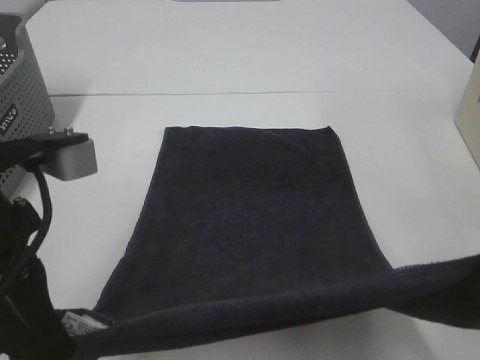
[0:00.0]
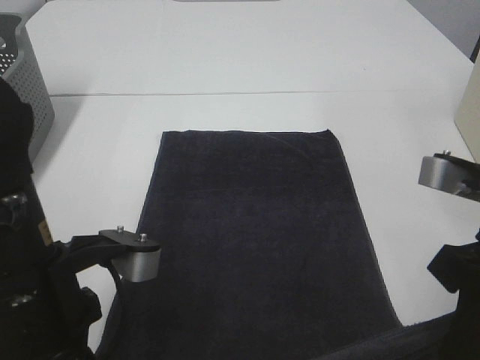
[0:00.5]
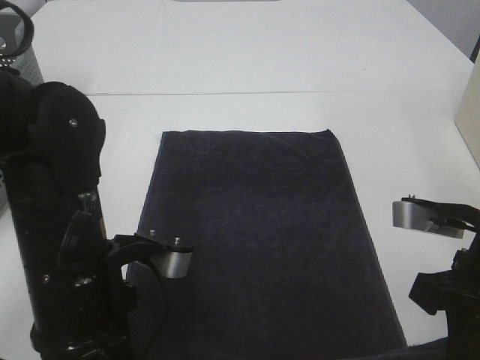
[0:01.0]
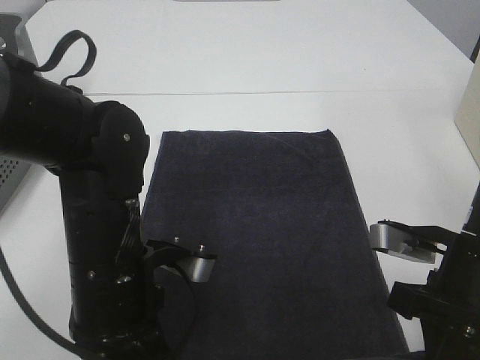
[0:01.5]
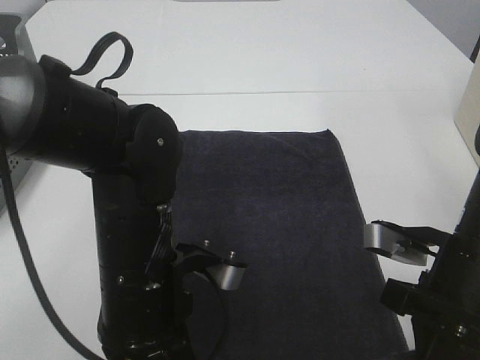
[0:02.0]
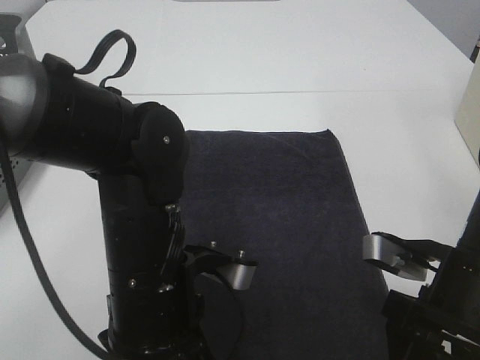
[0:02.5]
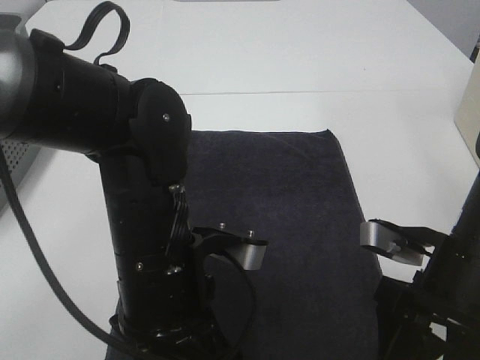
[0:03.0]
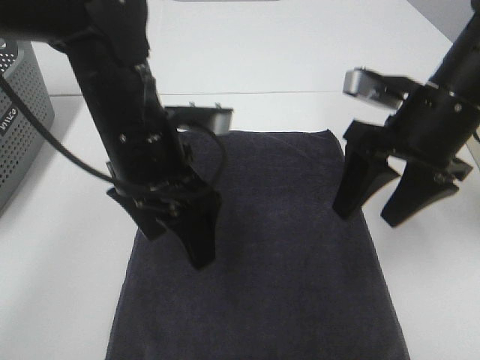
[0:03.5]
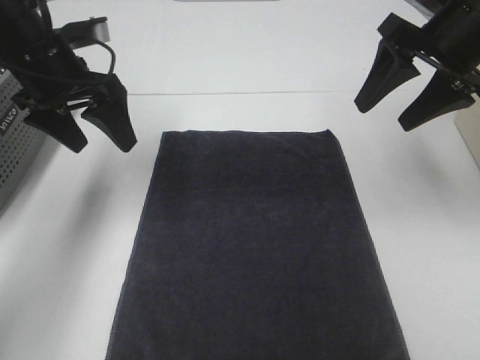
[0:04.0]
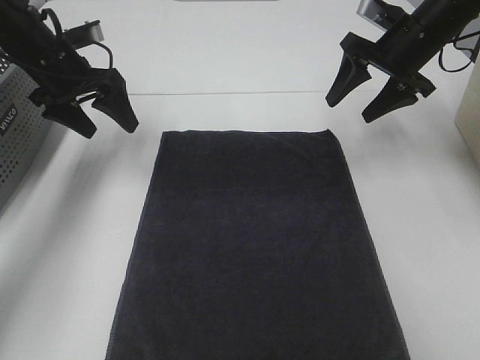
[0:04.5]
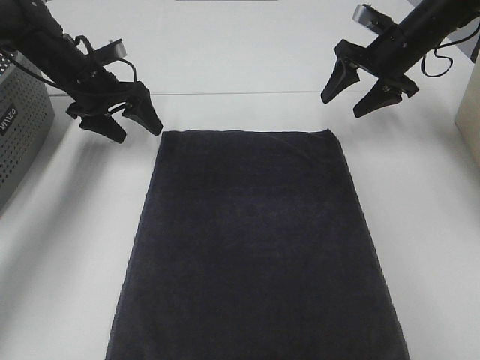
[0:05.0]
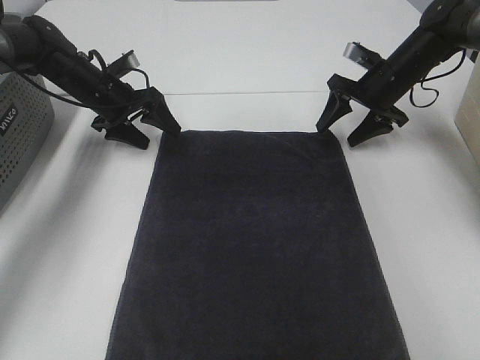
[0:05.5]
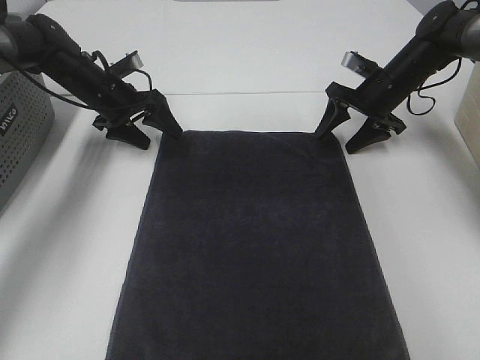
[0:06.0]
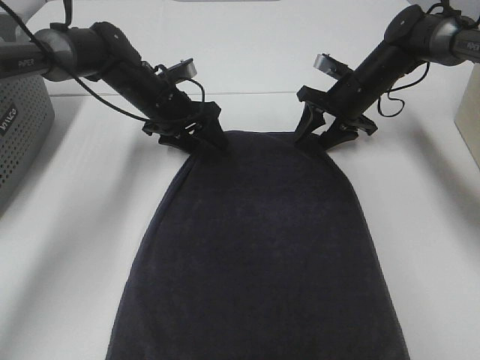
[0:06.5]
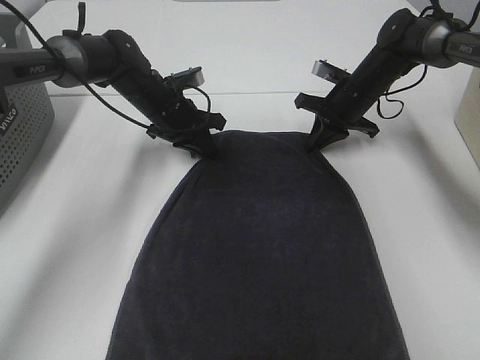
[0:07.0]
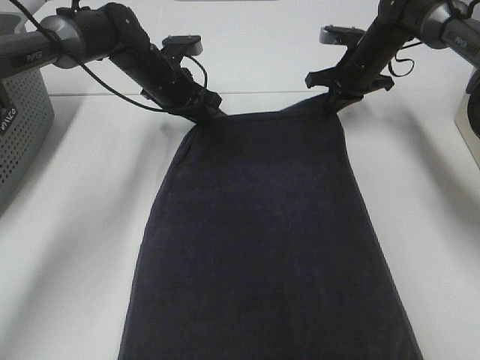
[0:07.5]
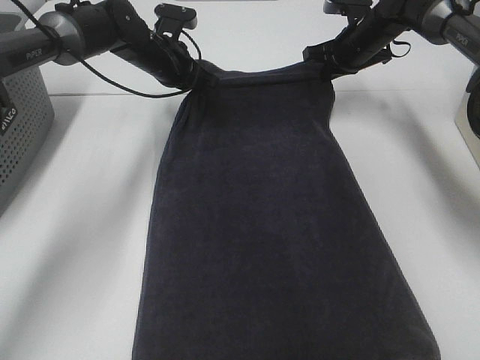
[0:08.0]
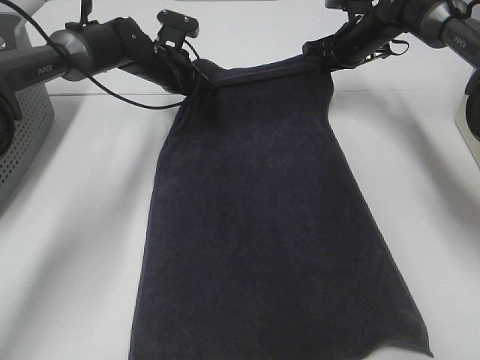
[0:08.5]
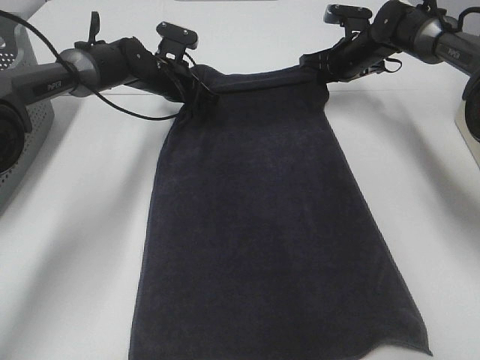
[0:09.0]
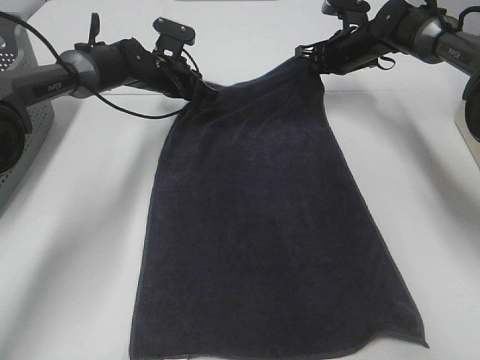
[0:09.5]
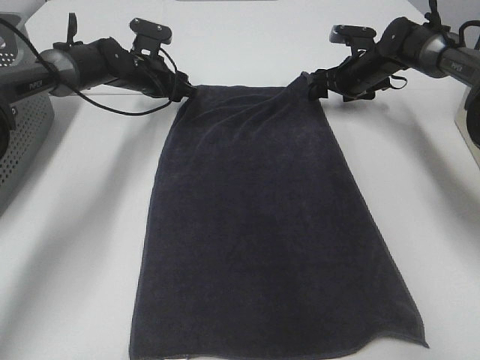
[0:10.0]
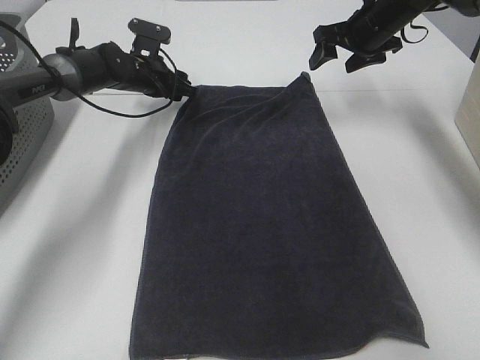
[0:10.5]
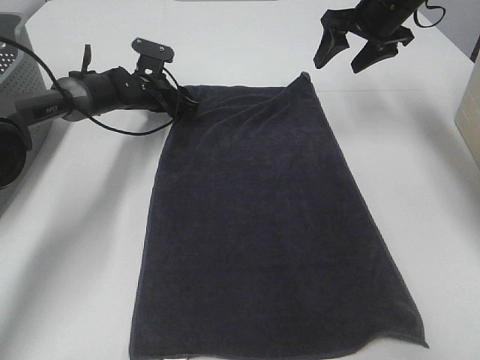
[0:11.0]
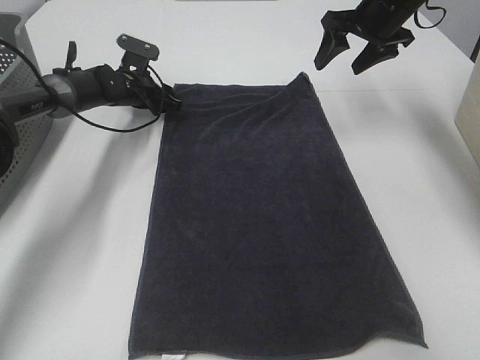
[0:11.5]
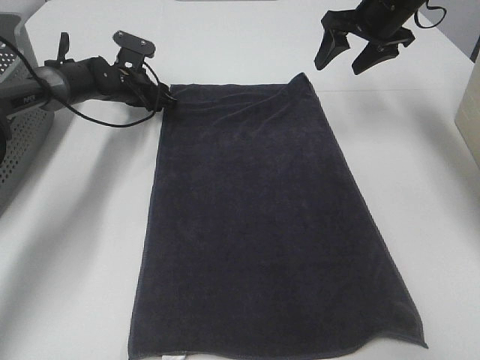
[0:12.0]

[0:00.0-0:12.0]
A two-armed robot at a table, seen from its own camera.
Task of the whole recording: Remove the towel and place it.
Step, 0:00.0 to 0:04.0: Right hand:adjust the gray towel.
Step, 0:00.0 to 0:06.5: Left hand:adjust the gray towel.
0:00.0 to 0:02.0: The right gripper is displaced downward by some 15 cm. The left gripper travels downward and to the right by some 15 cm.
0:02.0 to 0:04.0: The left gripper goes some 25 cm forward, to the left and upward, and opens its fingers, while the right gripper heads forward and upward, covering some 20 cm, and opens its fingers.
0:04.0 to 0:06.0: The left gripper shifts about 20 cm forward and downward. The right gripper moves downward and forward, roughly 20 cm.
0:06.0 to 0:08.0: The left gripper shifts some 10 cm to the right, and closes up, while the right gripper moves forward and upward, approximately 10 cm, and closes up.
0:08.0 to 0:10.0: The right gripper moves downward, roughly 5 cm, and opens. Meanwhile the left gripper shifts by about 5 cm, and opens.
0:10.0 to 0:12.0: The right gripper goes some 15 cm upward and backward.

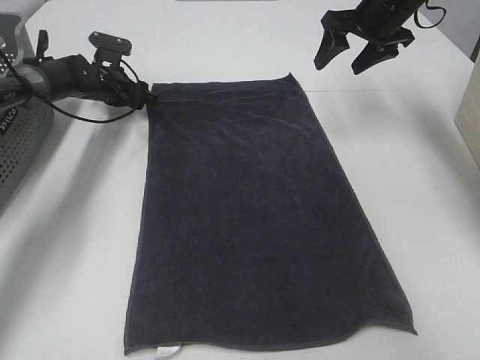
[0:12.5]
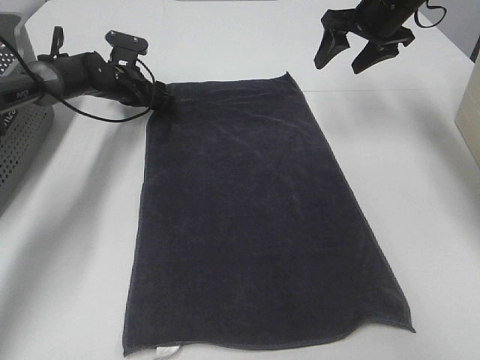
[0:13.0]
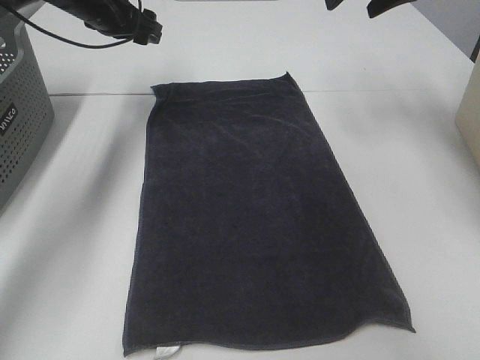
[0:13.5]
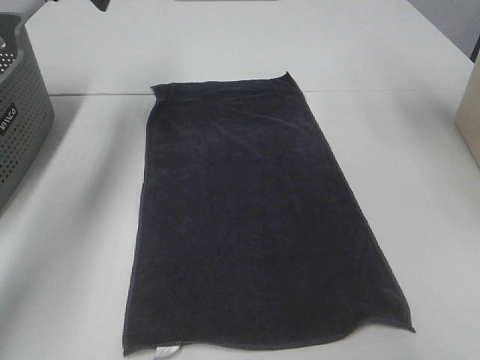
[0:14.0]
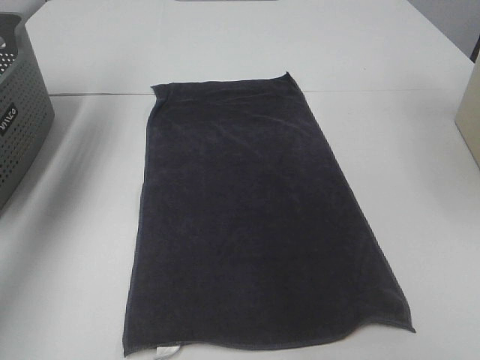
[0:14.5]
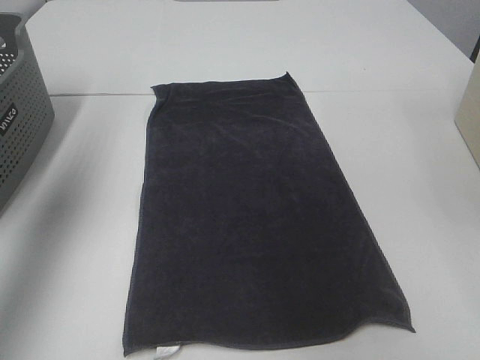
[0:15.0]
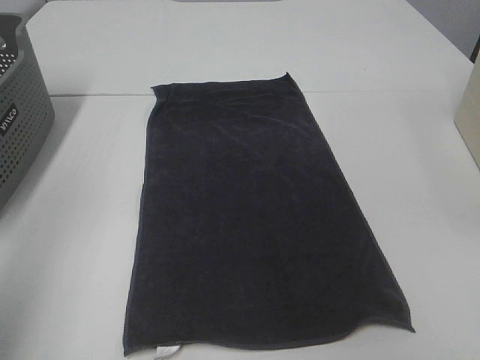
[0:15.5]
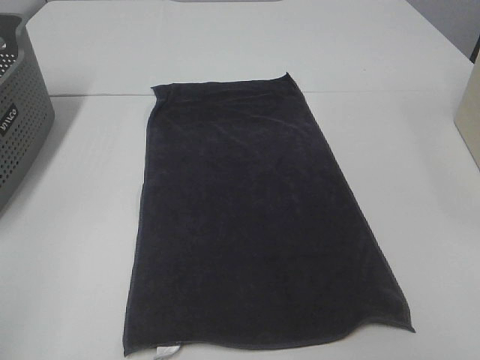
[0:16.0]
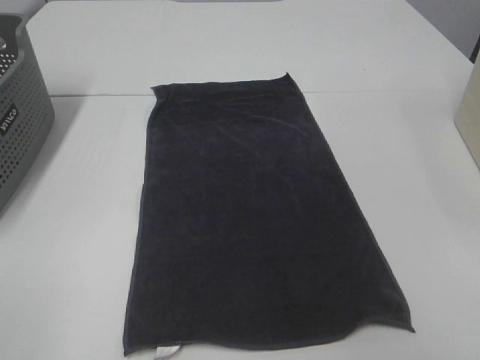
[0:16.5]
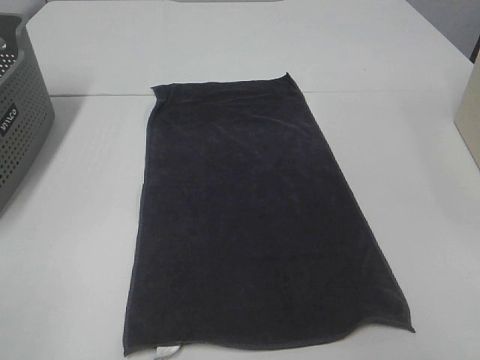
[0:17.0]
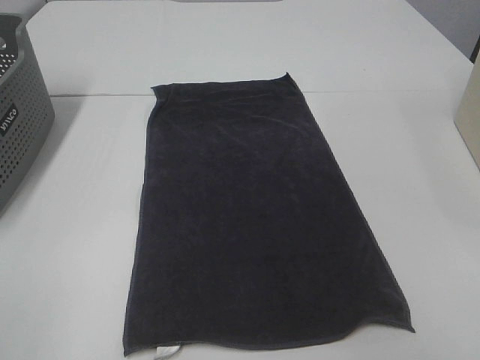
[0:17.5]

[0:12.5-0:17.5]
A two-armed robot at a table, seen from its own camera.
Task of the whole recording: Remove the towel and place it.
0:12.5 to 0:15.0: The right gripper moves backward and upward, about 40 cm. Meanwhile the left gripper travels upward and backward by some 50 cm.
0:15.0 to 0:17.5: The left gripper shifts about 35 cm backward and downward.

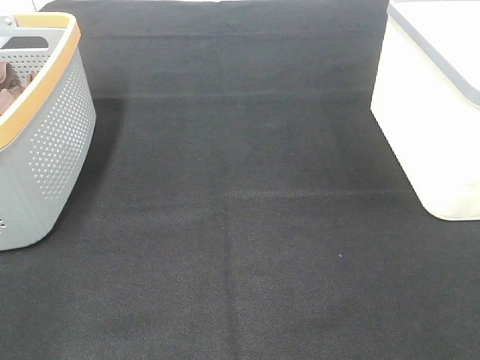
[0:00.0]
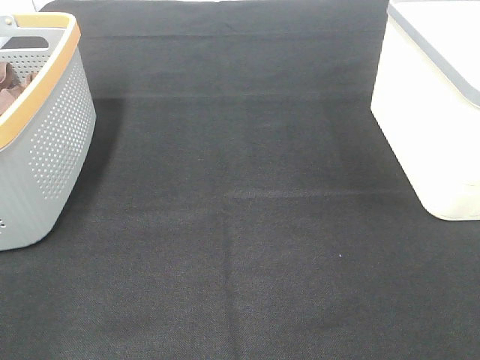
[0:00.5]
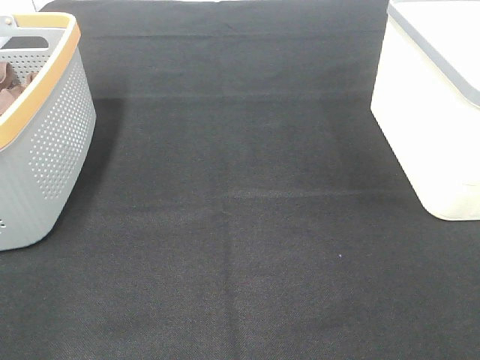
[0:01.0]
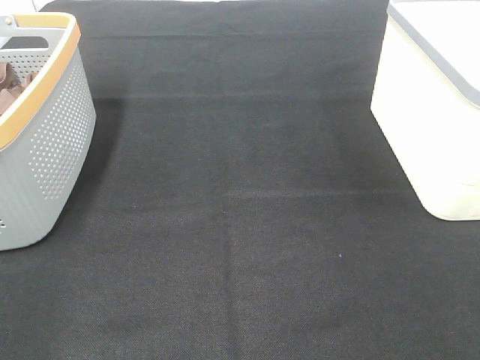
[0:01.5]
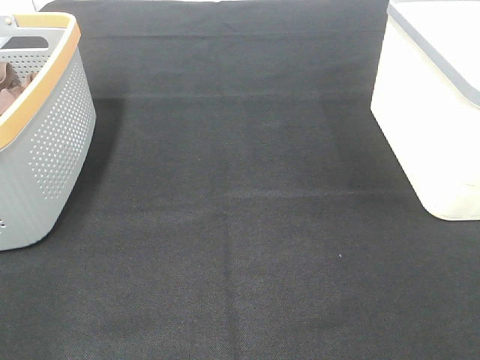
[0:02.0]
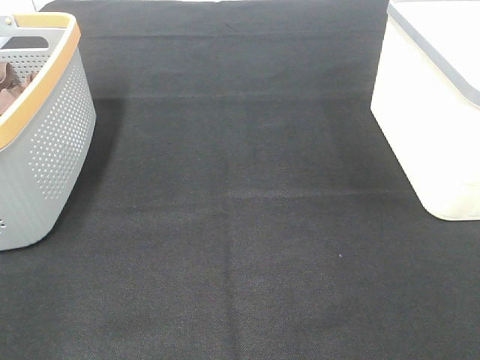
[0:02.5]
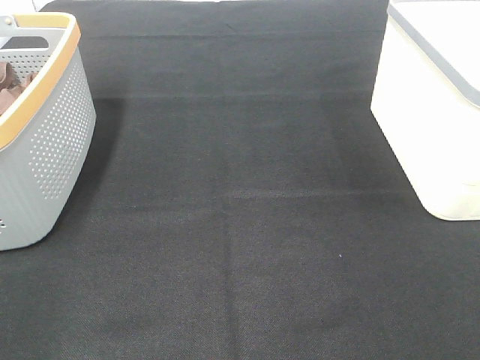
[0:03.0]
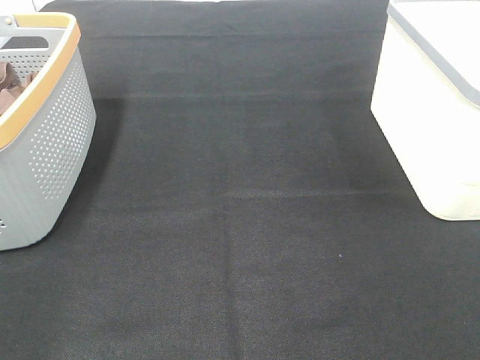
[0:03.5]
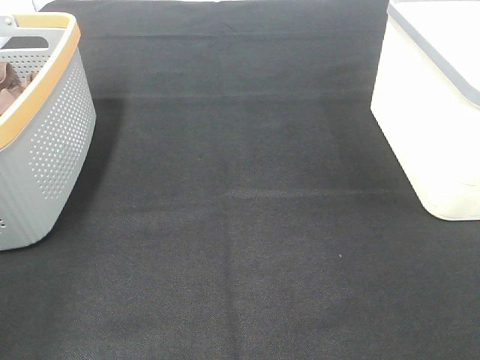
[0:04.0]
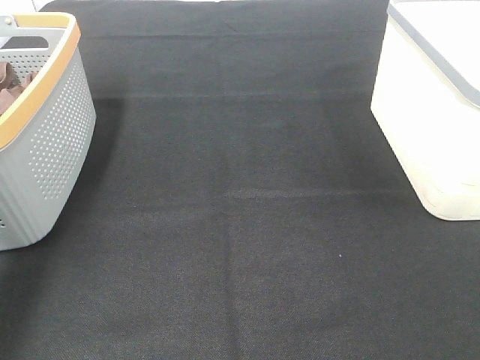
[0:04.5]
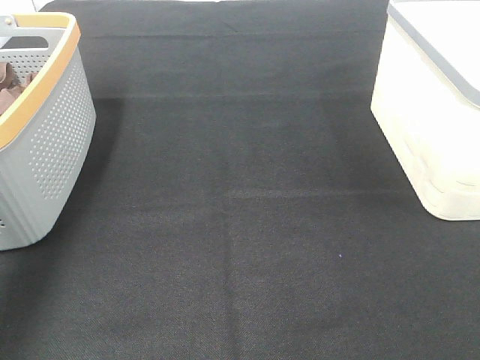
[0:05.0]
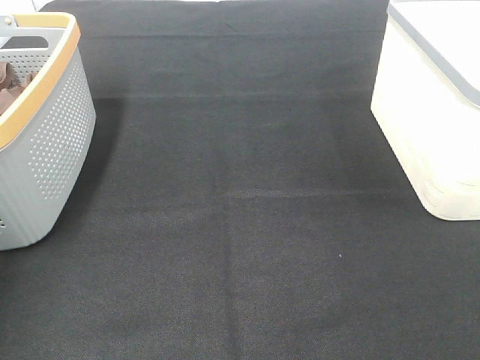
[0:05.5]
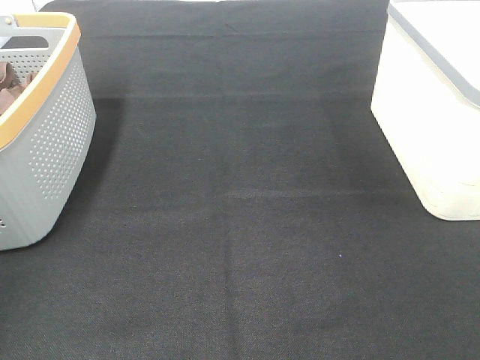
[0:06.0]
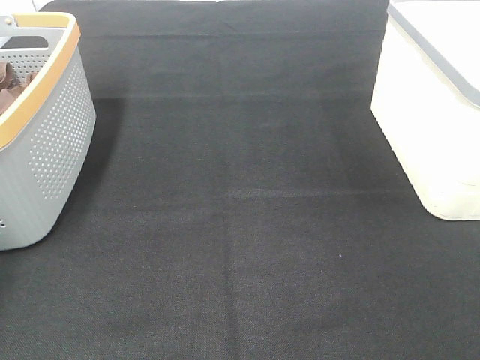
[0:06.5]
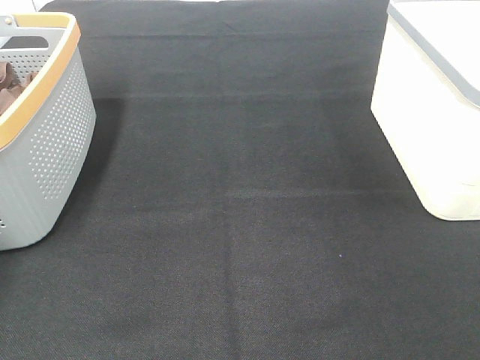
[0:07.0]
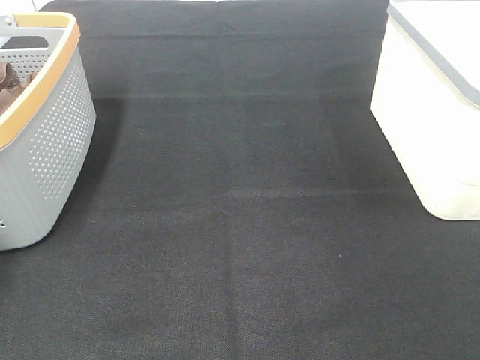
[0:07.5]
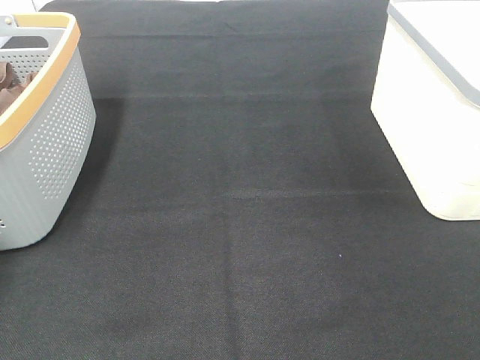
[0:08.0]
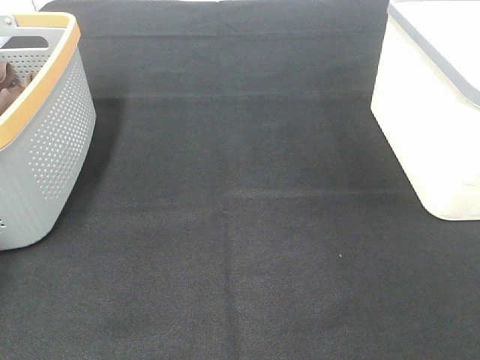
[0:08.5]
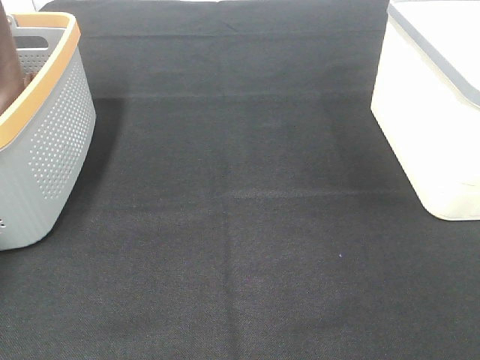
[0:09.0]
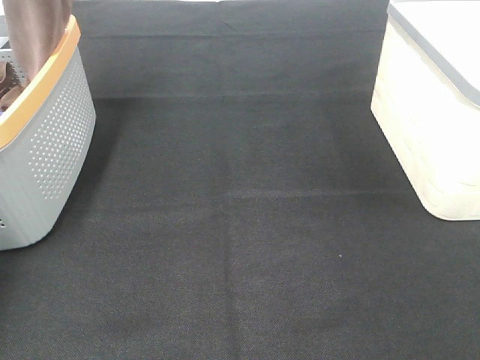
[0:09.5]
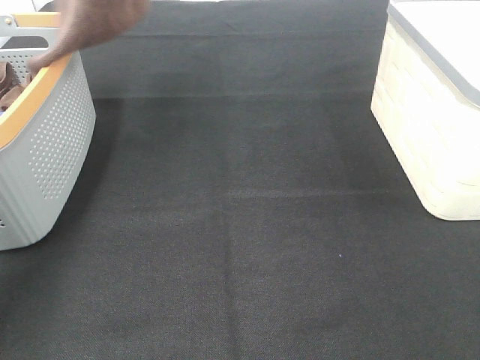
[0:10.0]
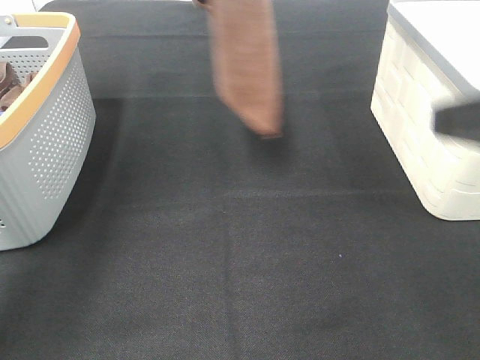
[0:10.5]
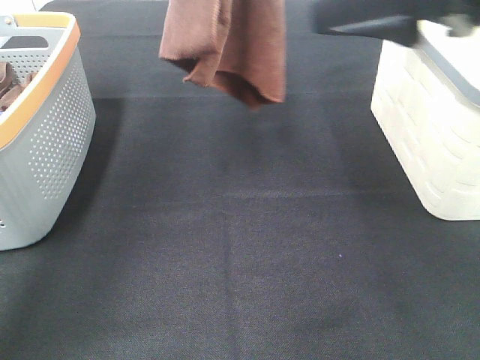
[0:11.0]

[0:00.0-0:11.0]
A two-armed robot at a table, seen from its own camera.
Task of the whole recording: Remove the towel and place it.
0:00.0 to 0:03.5: Both grippers stay about where they are.
0:03.5 to 0:05.5: The left gripper moves forward, about 35 cm.
0:07.5 to 0:09.0: The left gripper heads upward, covering some 15 cm, and closes its fingers.
0:09.0 to 0:11.0: The left gripper travels to the right by about 30 cm. The right gripper shifts approximately 25 cm forward and to the left.
